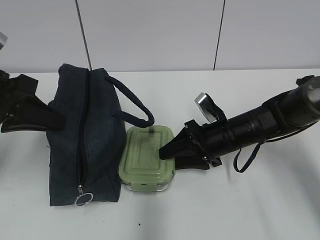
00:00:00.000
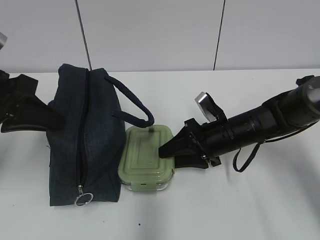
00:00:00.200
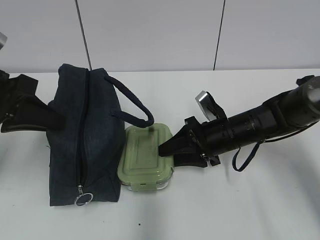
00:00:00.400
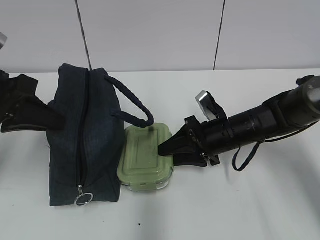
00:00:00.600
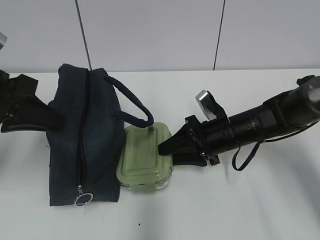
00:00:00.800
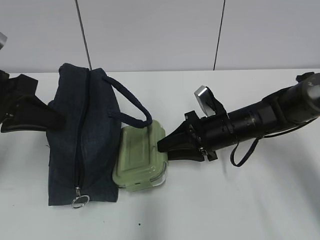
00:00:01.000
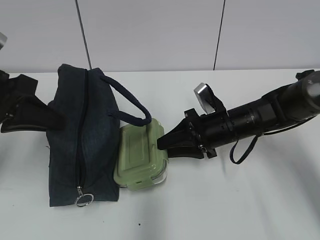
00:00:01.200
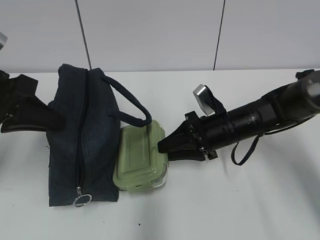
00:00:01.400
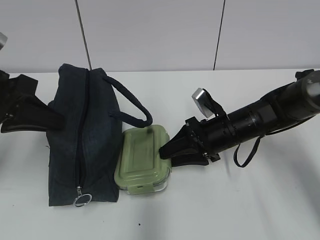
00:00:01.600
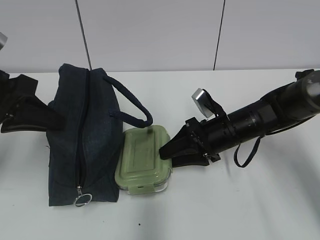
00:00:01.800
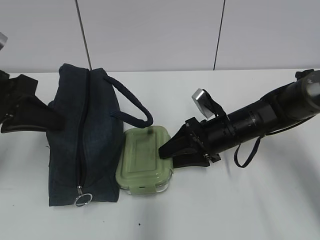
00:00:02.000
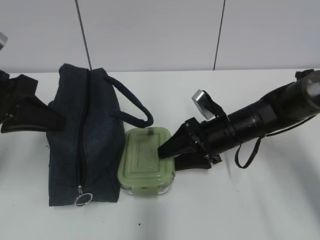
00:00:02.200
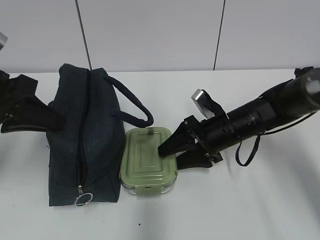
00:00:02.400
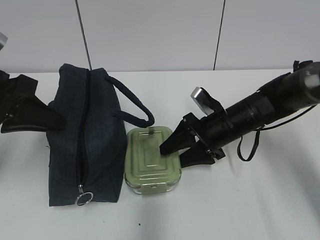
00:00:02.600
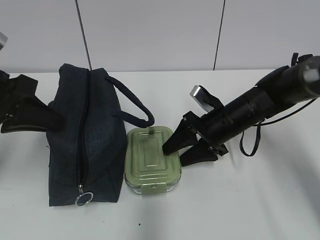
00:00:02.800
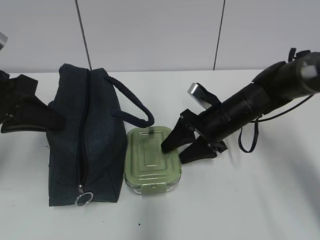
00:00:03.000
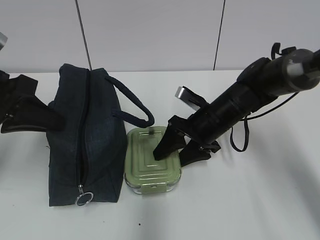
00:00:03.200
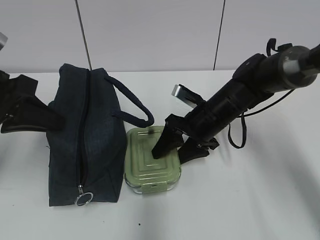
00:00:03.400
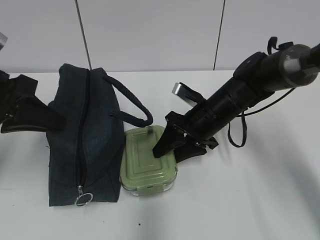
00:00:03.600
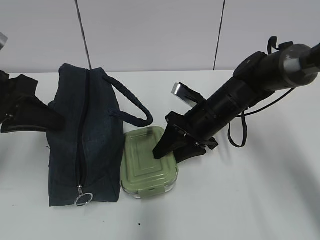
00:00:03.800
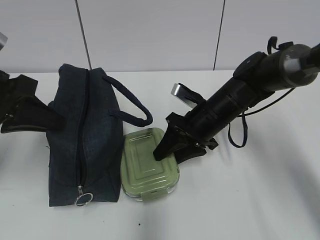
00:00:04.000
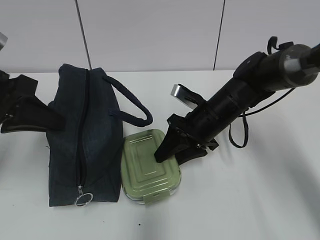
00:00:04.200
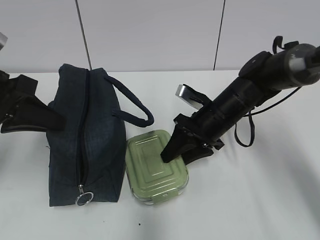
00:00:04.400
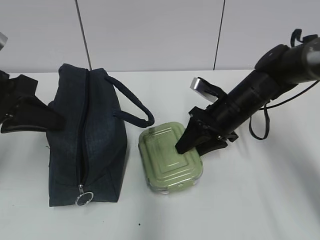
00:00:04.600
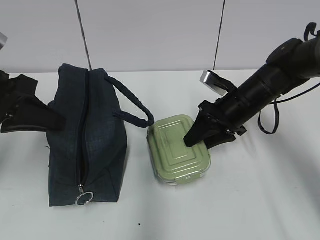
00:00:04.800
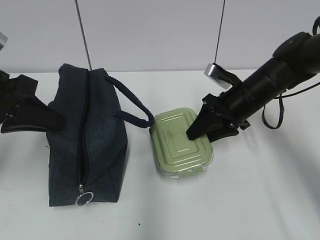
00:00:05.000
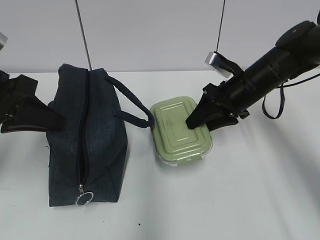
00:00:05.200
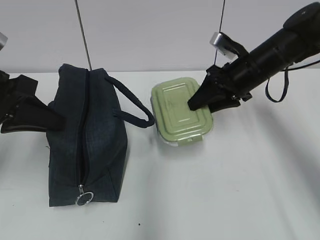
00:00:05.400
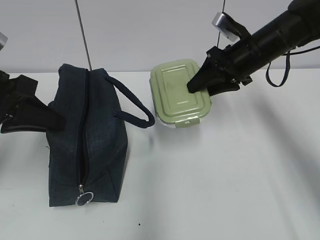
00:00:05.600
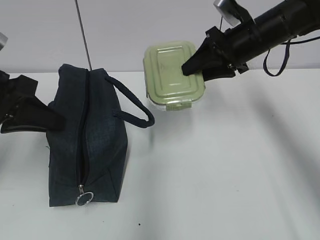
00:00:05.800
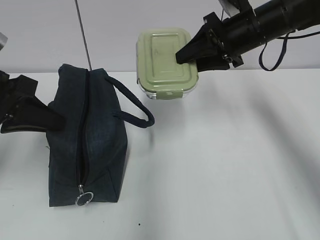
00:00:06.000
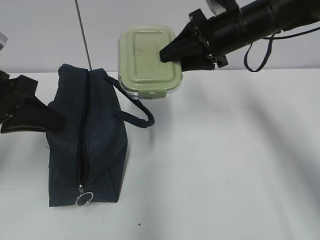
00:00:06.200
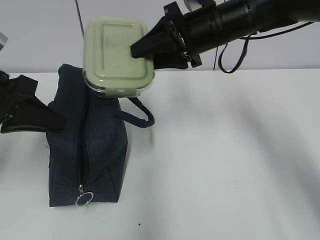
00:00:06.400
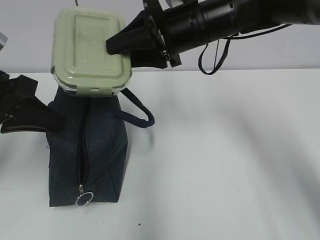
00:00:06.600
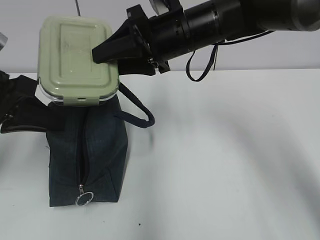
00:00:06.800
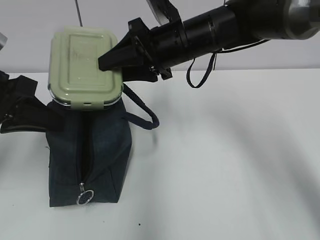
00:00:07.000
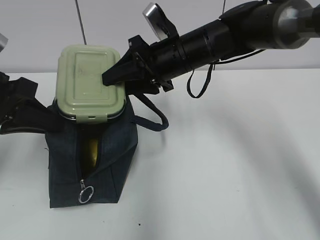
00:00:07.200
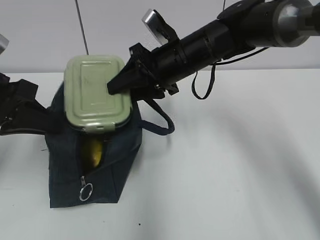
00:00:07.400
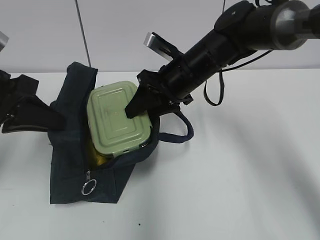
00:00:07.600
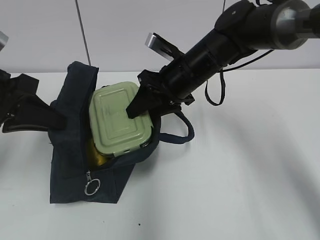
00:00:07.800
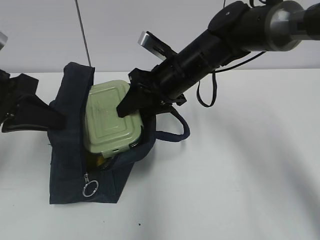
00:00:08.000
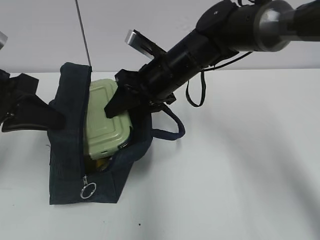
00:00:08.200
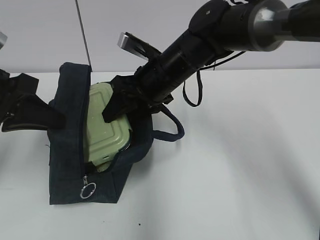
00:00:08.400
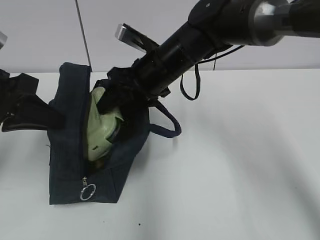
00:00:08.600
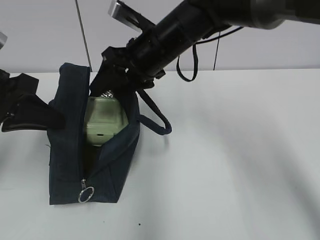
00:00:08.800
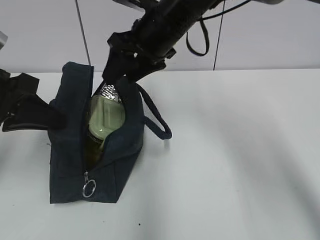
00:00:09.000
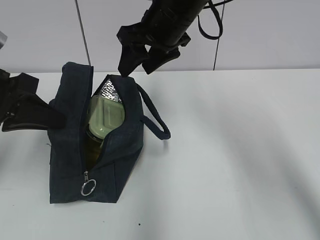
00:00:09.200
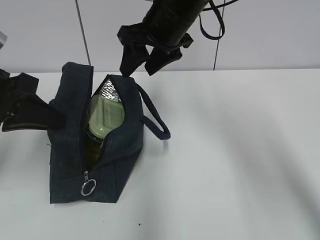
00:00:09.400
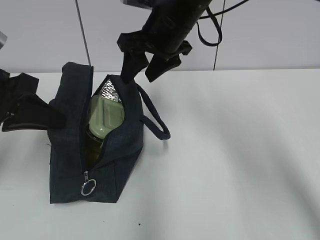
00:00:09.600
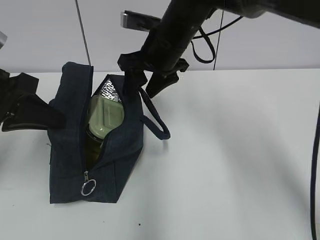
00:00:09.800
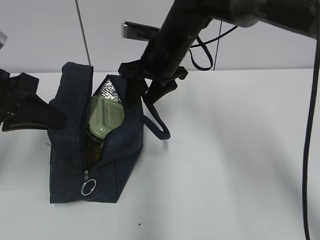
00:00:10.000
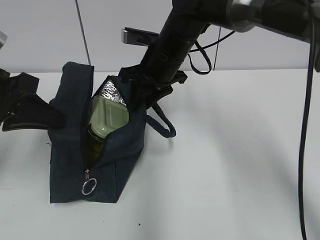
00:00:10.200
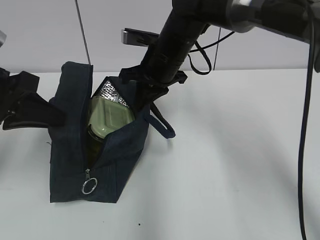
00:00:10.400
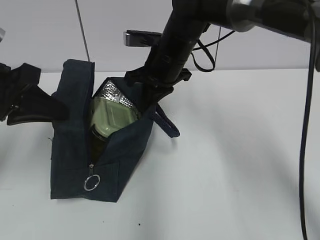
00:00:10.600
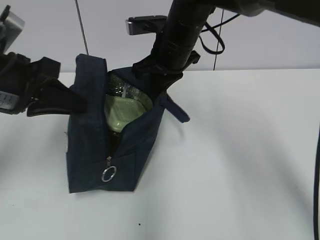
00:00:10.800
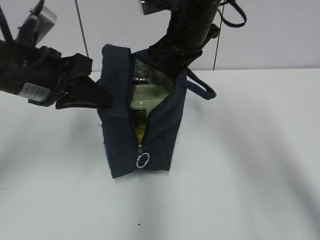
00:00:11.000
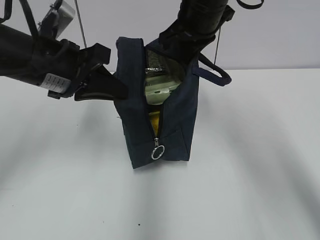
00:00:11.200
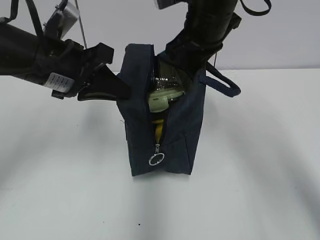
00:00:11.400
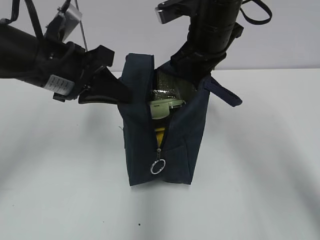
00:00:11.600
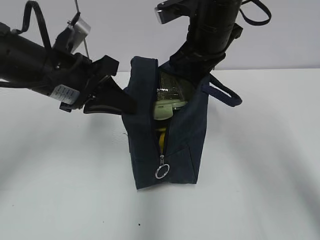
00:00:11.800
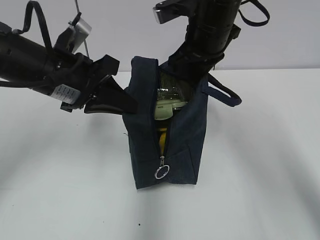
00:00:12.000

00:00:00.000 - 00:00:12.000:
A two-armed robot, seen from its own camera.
Step, 00:00:00.000 - 00:00:04.200: Grab the lunch box with your right hand.
Step, 00:00:04.400 - 00:00:09.200: Place it into the bag with your right hand.
Step, 00:00:09.600 - 00:00:10.400: Grab the lunch bag with your right hand.
Step, 00:00:10.800 - 00:00:11.000: Move the lunch bag to the left.
00:00:00.000 - 00:00:03.000: There are only small adjustments of the grippers.
00:00:03.000 - 00:00:04.400: There are only small adjustments of the grippers.
00:00:04.400 - 00:00:06.000: The right gripper goes some 15 cm upward.
00:00:06.000 - 00:00:07.600: The right gripper goes about 10 cm to the left and downward.
00:00:07.600 - 00:00:09.000: The right gripper shifts roughly 10 cm upward.
00:00:09.000 - 00:00:10.400: The right gripper travels downward by approximately 5 cm, and closes its fingers.
00:00:10.400 - 00:00:12.000: The right gripper moves upward and to the right, about 10 cm, while the left gripper is displaced to the right by some 10 cm.

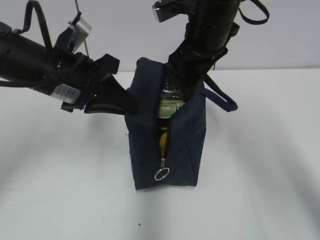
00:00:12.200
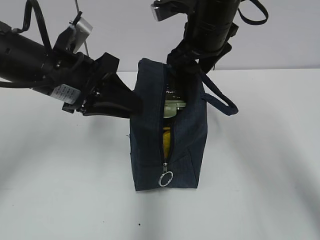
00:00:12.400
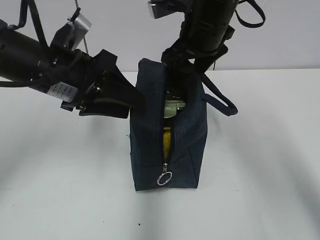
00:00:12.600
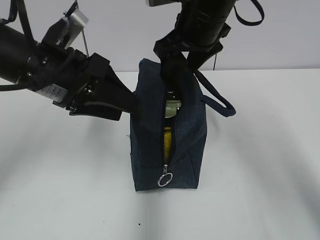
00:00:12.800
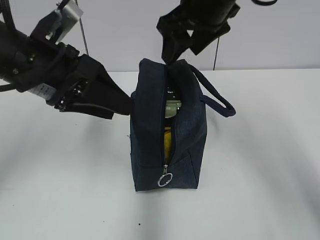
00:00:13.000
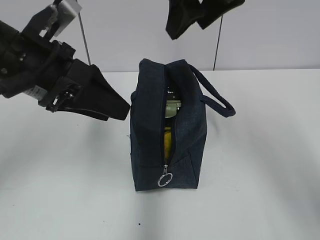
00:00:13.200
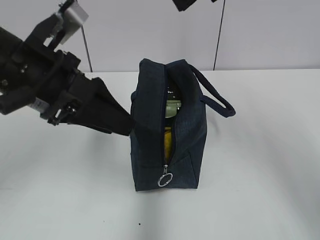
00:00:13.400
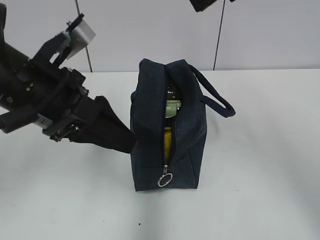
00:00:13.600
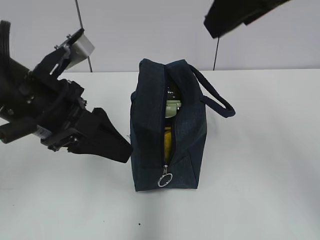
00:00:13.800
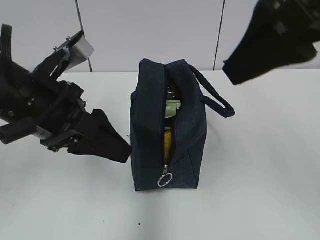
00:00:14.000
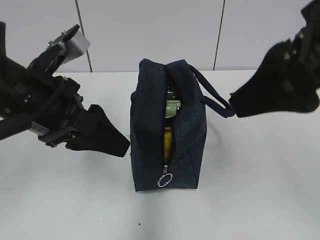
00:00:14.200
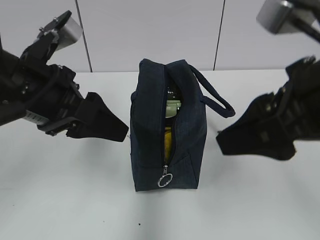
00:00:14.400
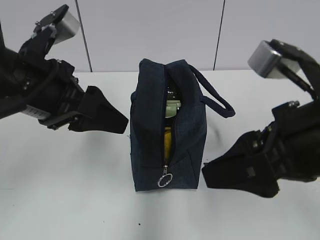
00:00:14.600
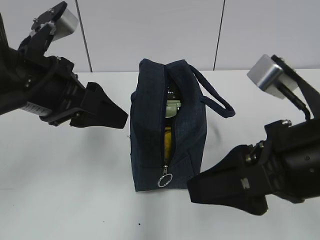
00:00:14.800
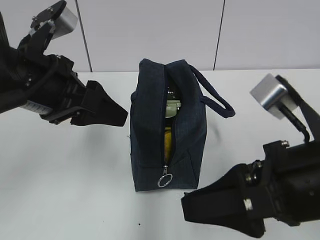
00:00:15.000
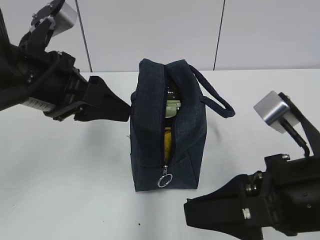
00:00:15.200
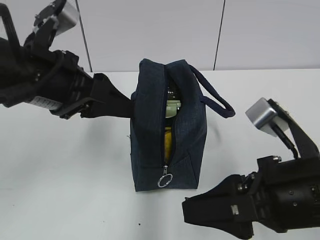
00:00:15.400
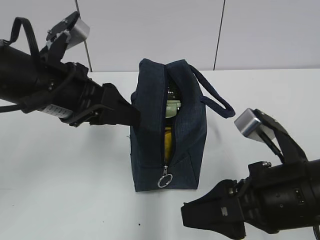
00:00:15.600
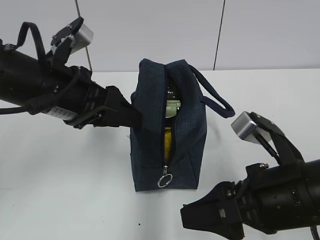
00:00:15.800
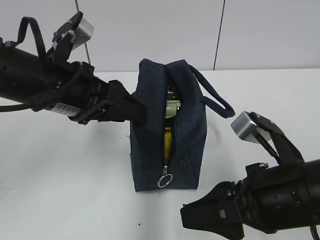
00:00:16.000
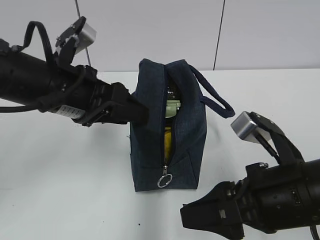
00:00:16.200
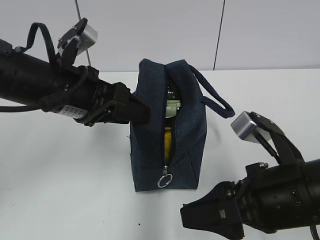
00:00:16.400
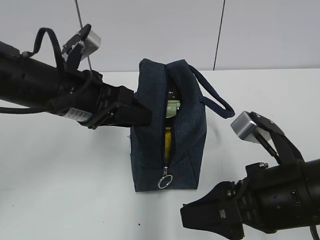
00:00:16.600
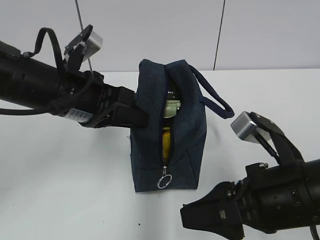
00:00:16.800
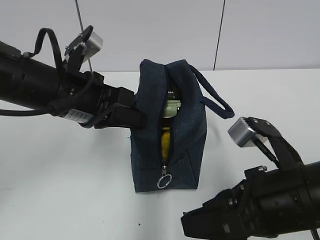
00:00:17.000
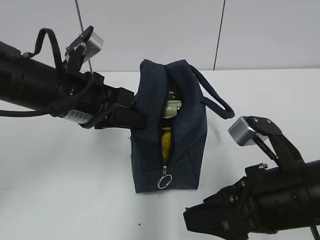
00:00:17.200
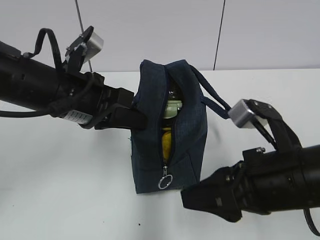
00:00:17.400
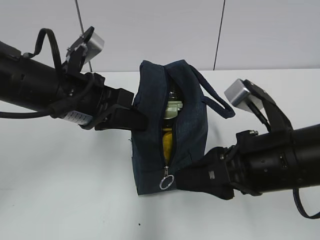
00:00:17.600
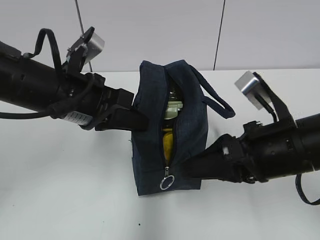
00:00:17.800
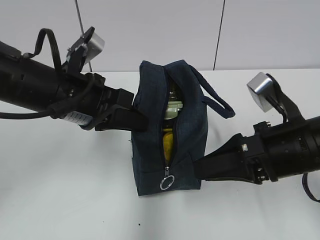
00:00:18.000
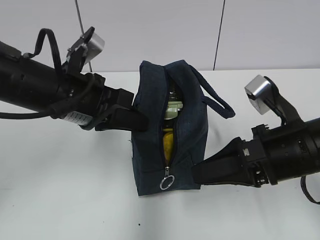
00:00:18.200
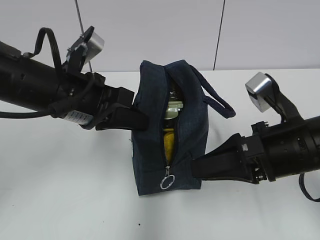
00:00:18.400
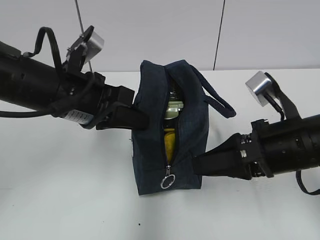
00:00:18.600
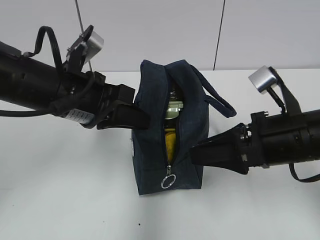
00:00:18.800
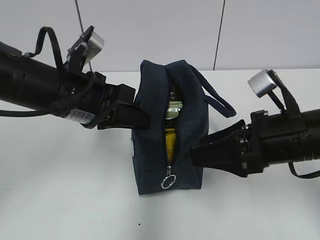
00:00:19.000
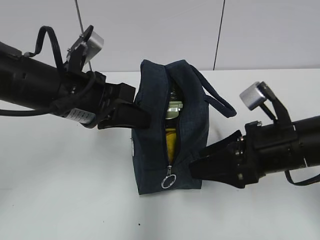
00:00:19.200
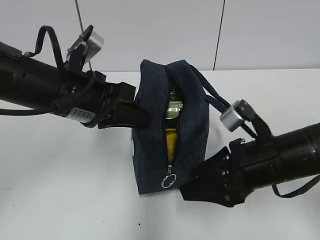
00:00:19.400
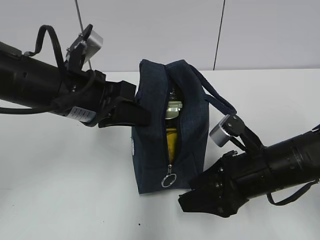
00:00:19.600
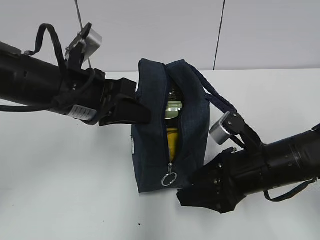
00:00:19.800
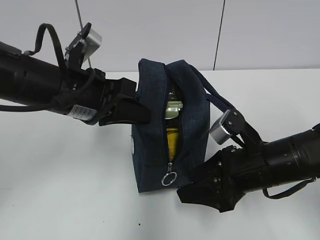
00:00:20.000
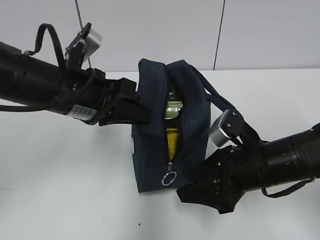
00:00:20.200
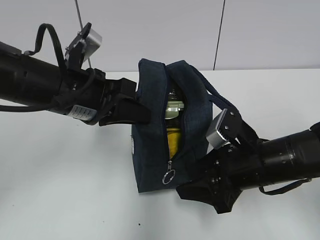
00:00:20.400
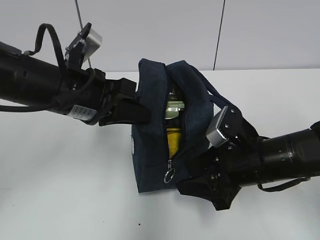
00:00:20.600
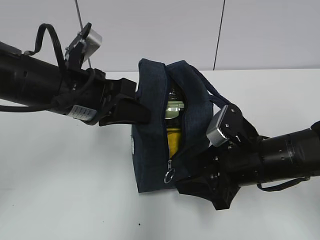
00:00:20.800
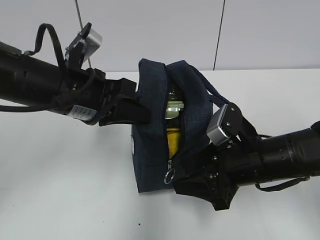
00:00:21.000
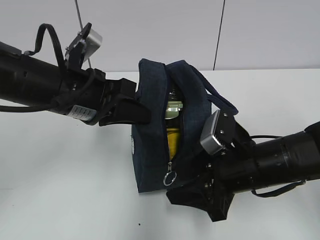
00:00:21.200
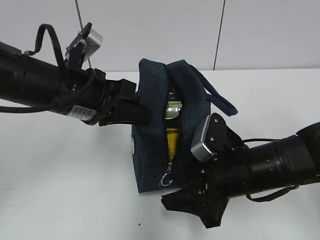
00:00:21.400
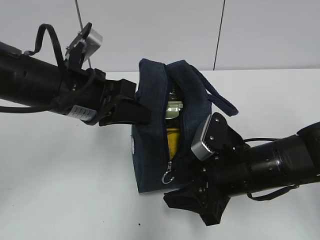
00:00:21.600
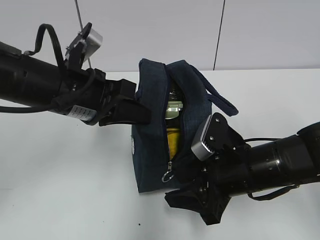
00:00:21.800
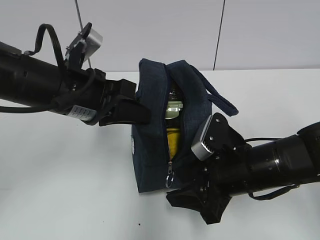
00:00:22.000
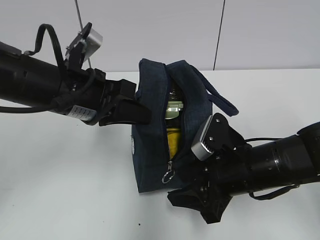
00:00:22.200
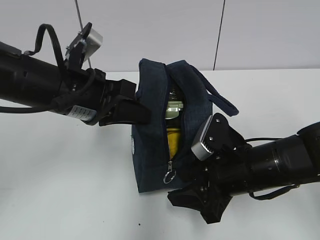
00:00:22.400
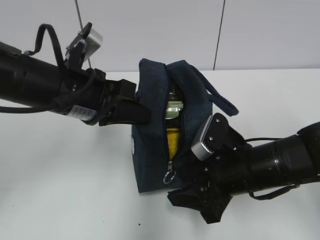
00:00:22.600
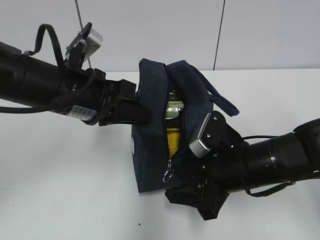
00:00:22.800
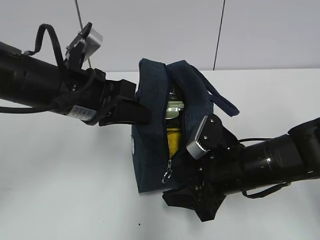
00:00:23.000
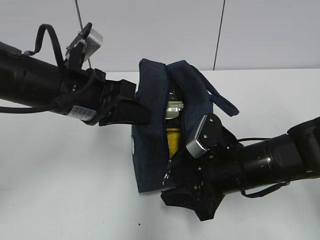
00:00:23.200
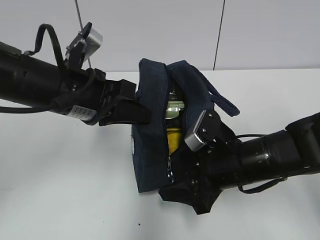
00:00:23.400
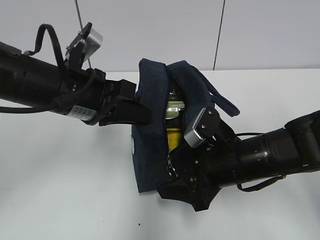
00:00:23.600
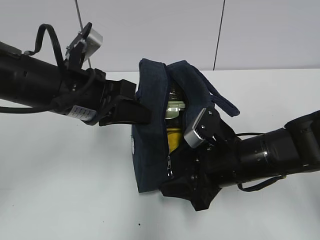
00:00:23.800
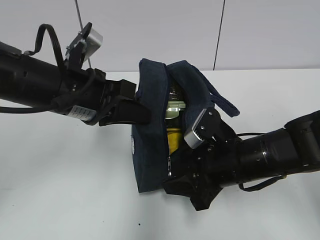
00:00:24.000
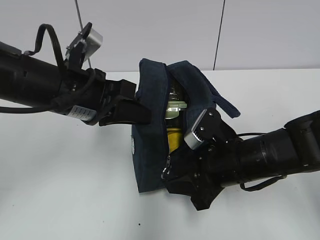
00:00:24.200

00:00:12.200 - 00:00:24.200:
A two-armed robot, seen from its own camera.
00:00:12.200 - 00:00:13.800: The right gripper moves backward and upward, some 20 cm, and opens. Meanwhile the left gripper moves backward, roughly 5 cm, and opens.
00:00:13.800 - 00:00:15.200: The right gripper heads downward and backward, covering about 20 cm.
00:00:15.200 - 00:00:16.600: The left gripper ends up approximately 5 cm from where it was.
00:00:16.600 - 00:00:18.200: The right gripper shifts approximately 5 cm forward. The left gripper closes.
00:00:18.200 - 00:00:19.800: The right gripper heads downward, covering roughly 5 cm.
00:00:19.800 - 00:00:24.200: The grippers stay close to where they were, moving slightly.
